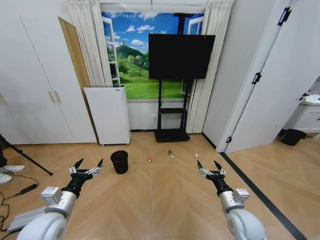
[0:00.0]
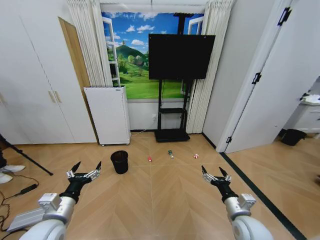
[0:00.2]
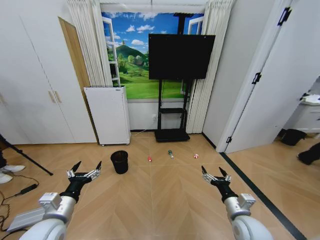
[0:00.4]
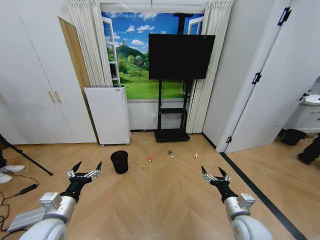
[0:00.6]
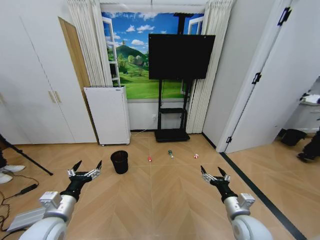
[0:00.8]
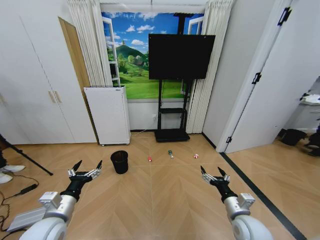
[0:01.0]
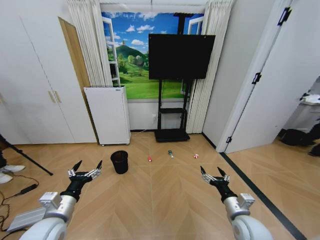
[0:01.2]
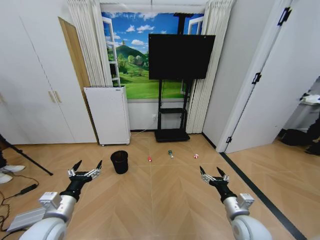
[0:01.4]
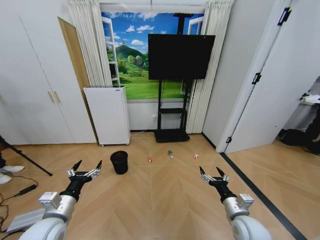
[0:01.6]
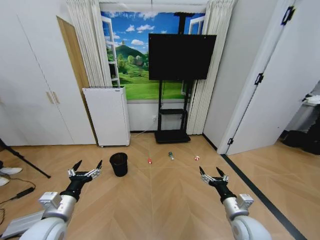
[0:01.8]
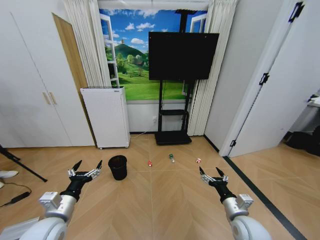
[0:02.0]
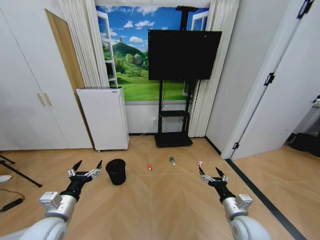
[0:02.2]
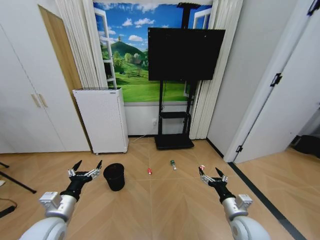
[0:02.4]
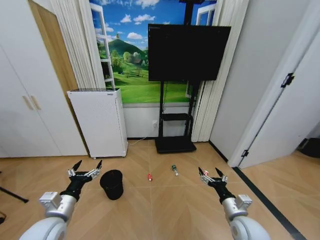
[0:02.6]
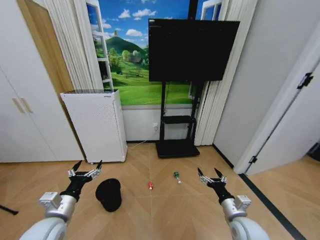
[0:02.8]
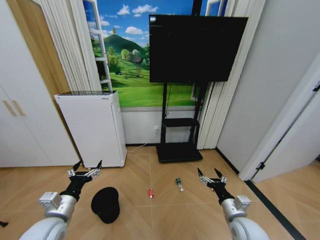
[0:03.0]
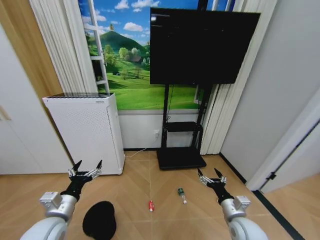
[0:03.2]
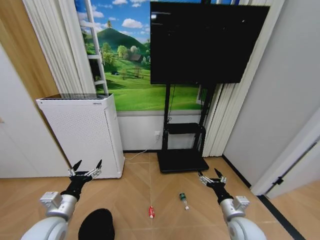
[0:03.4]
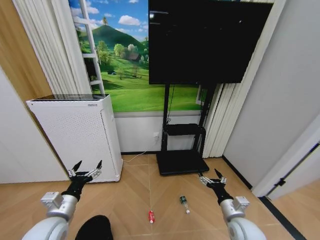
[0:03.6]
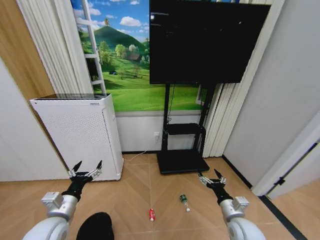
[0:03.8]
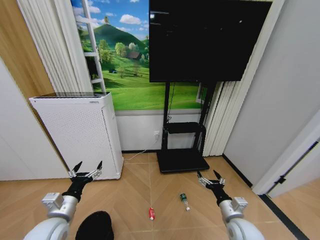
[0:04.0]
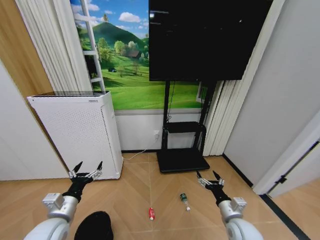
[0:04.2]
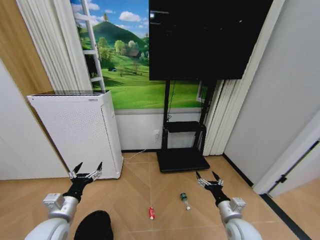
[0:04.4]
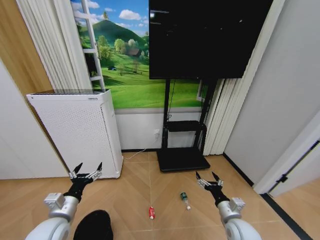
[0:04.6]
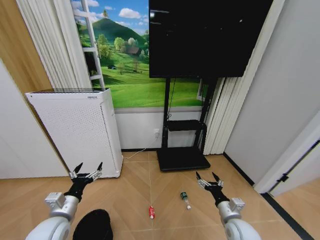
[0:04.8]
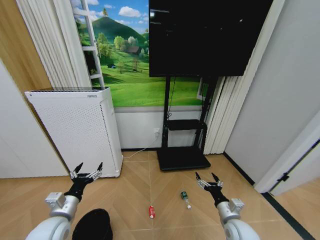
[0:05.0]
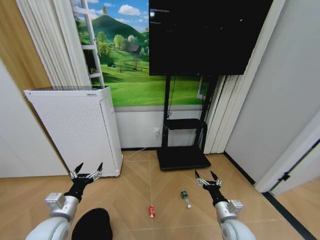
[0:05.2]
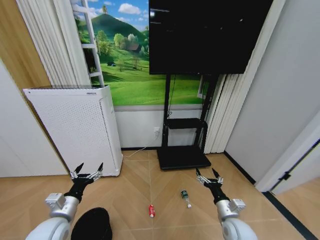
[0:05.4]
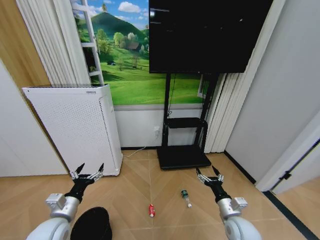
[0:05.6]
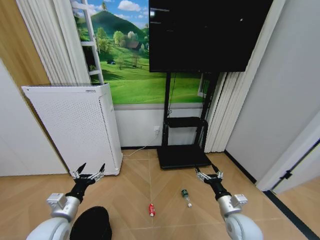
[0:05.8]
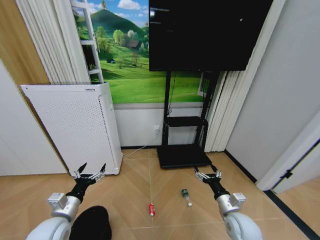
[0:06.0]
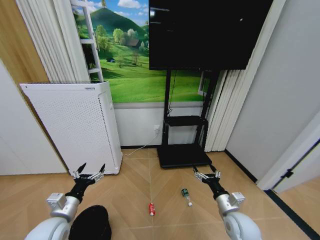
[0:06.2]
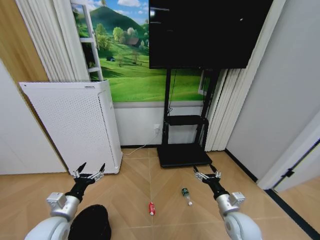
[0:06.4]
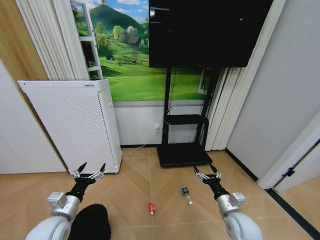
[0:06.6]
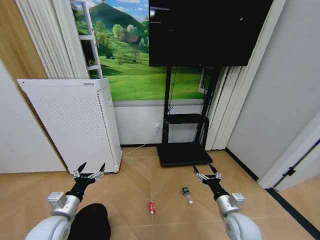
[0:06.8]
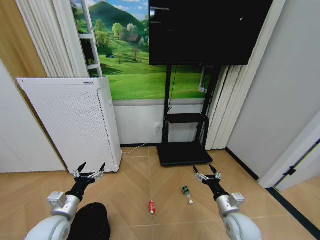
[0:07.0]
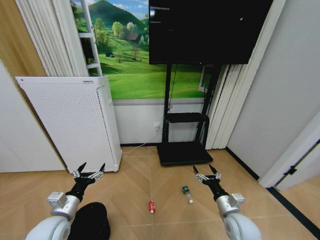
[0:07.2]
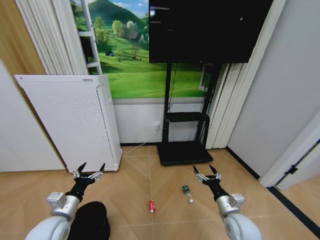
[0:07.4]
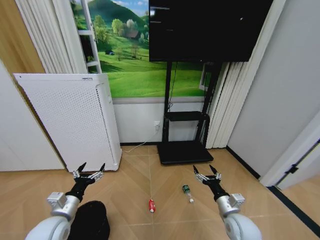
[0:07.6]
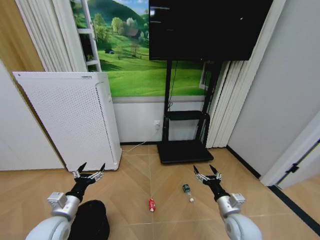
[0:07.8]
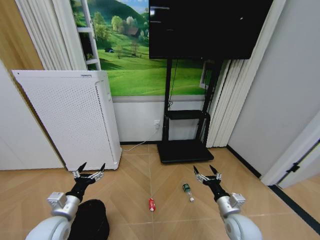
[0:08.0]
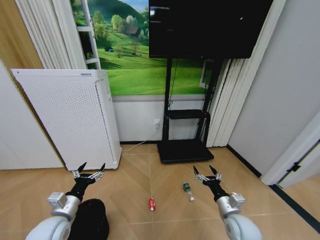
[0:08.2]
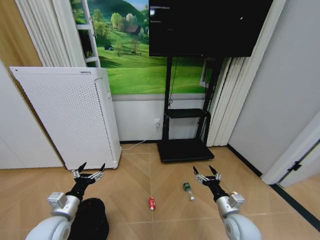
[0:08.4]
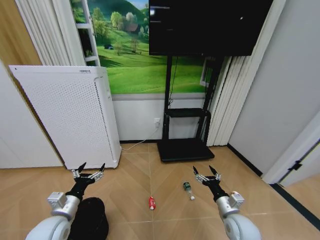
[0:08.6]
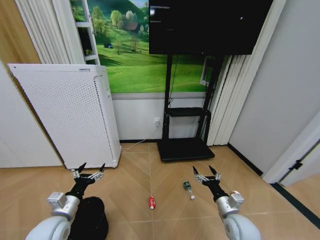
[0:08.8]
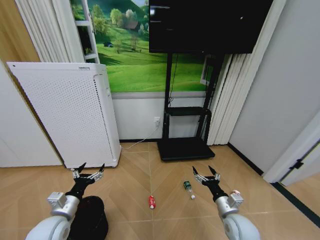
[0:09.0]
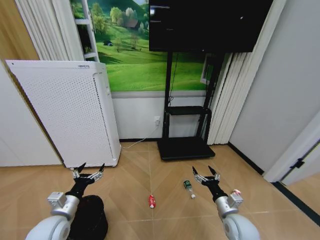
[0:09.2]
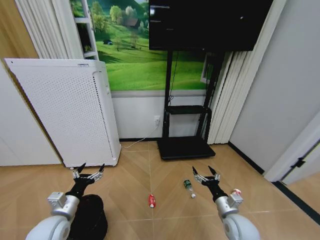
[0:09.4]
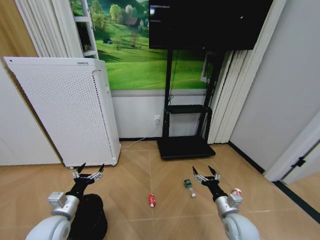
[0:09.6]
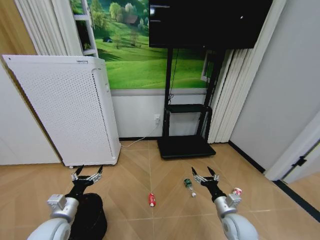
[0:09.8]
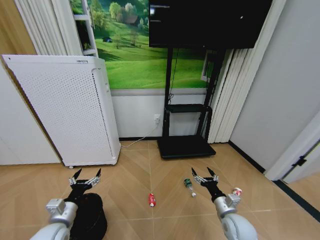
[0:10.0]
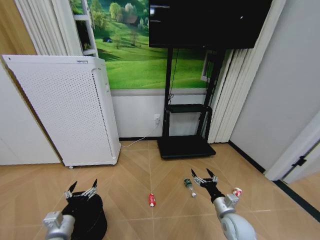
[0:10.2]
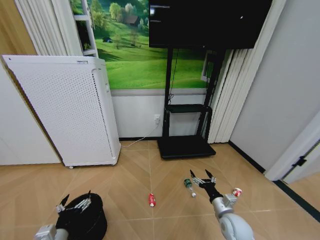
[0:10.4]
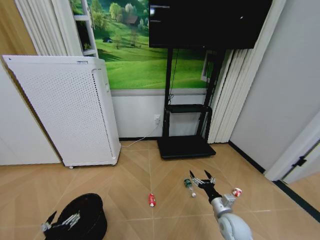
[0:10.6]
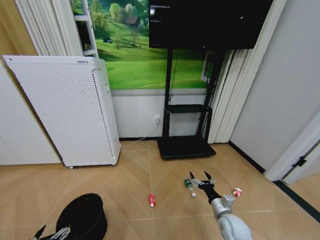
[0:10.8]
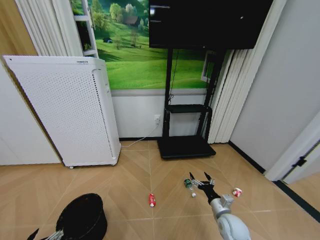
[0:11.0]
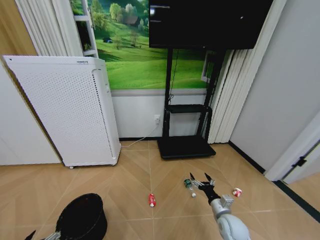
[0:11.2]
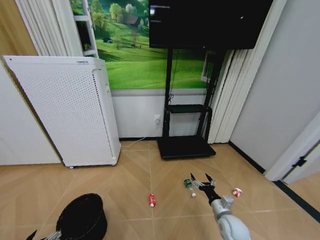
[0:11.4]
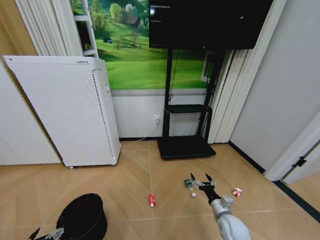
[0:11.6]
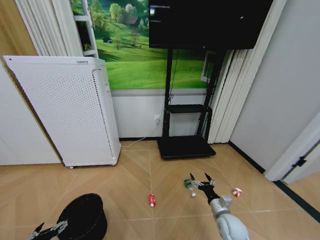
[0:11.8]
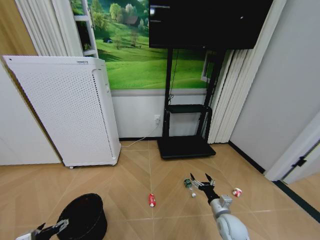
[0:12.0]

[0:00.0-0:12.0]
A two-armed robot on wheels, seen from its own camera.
Task of the whole recording: Pick up the trash bin and place the garbage on the floor into it.
0:04.4 to 0:06.0: There are only small adjustments of the grippers.
0:06.0 to 0:09.0: The two grippers keep their place.
0:09.0 to 0:10.4: The left gripper shifts some 10 cm backward and downward.
0:10.4 to 0:12.0: The left gripper goes some 10 cm to the left.

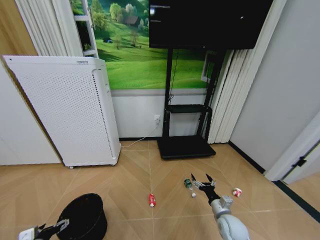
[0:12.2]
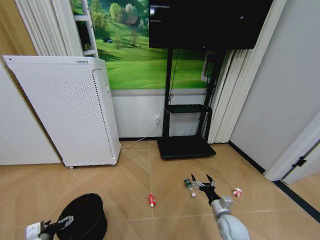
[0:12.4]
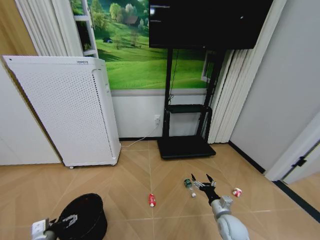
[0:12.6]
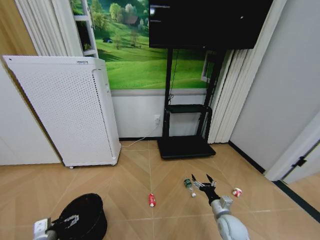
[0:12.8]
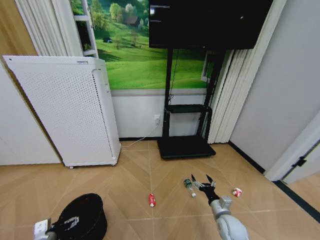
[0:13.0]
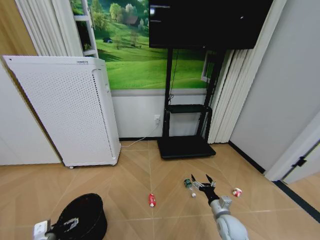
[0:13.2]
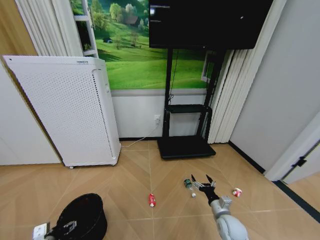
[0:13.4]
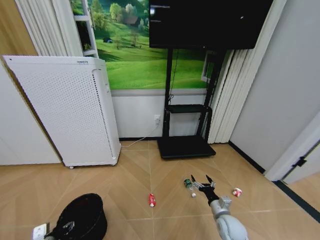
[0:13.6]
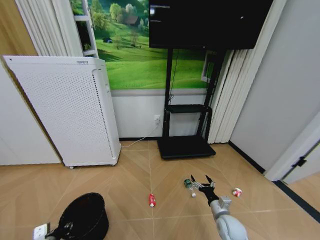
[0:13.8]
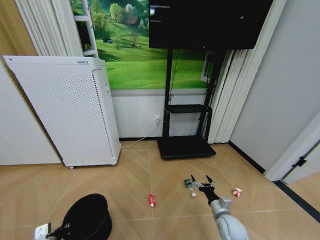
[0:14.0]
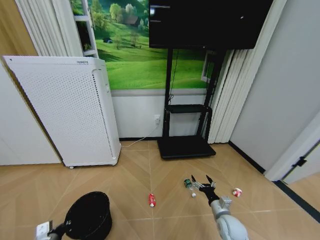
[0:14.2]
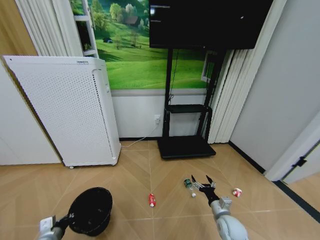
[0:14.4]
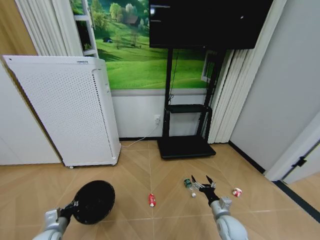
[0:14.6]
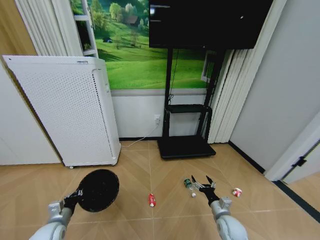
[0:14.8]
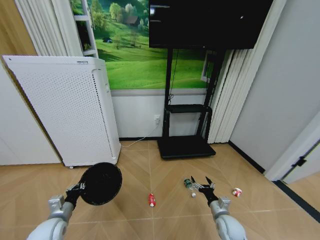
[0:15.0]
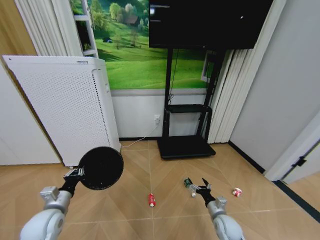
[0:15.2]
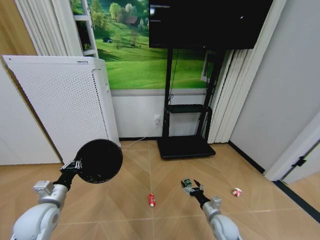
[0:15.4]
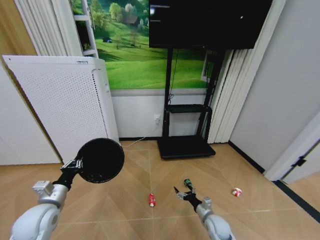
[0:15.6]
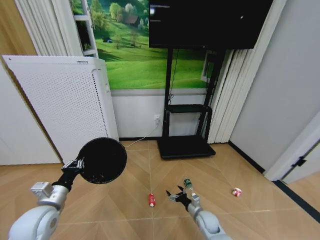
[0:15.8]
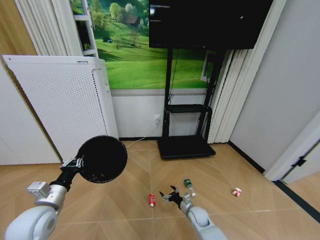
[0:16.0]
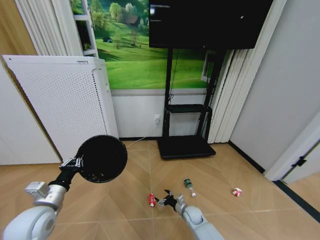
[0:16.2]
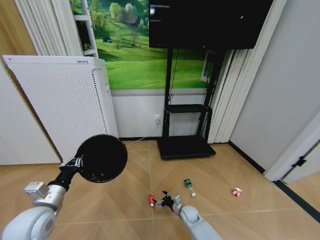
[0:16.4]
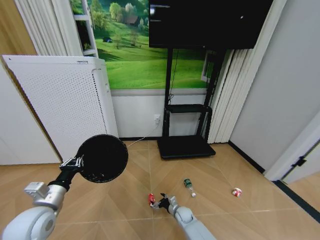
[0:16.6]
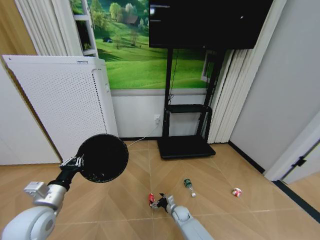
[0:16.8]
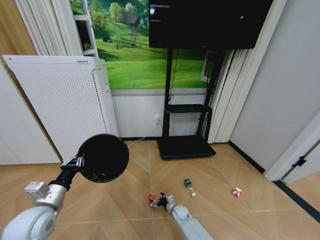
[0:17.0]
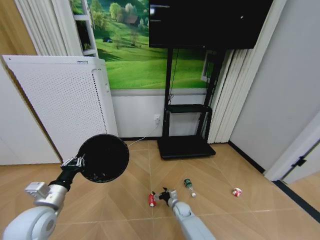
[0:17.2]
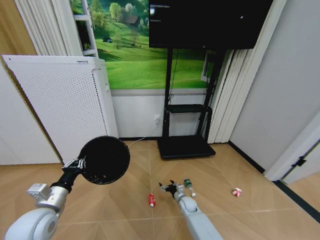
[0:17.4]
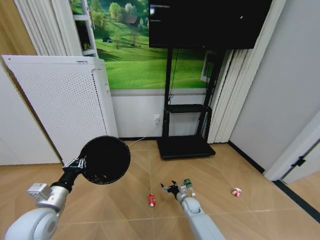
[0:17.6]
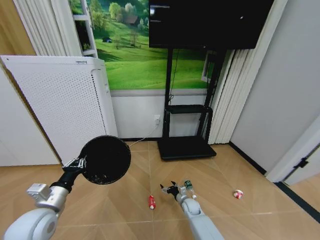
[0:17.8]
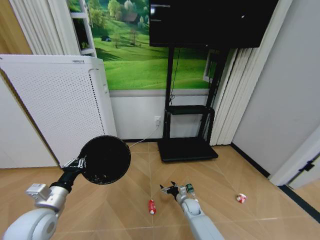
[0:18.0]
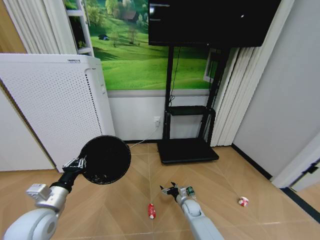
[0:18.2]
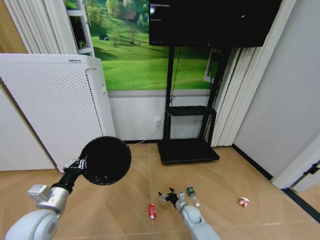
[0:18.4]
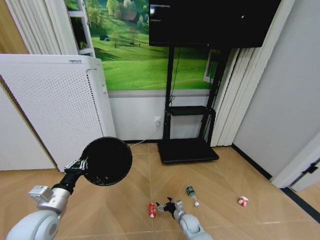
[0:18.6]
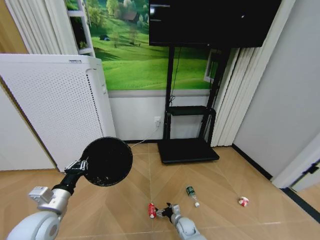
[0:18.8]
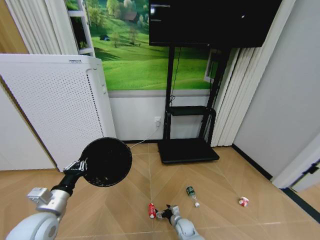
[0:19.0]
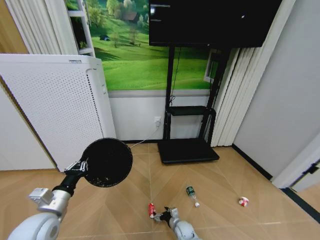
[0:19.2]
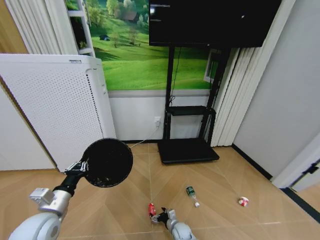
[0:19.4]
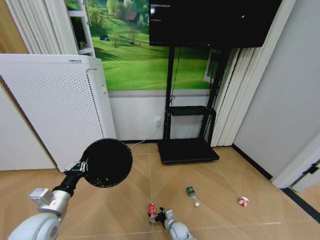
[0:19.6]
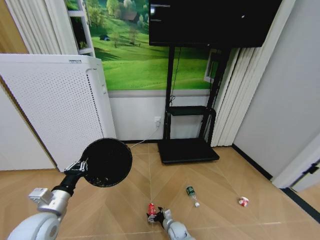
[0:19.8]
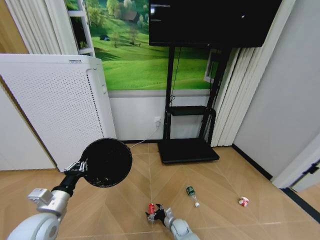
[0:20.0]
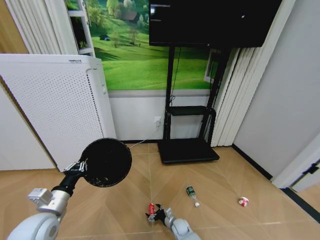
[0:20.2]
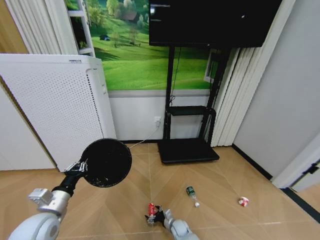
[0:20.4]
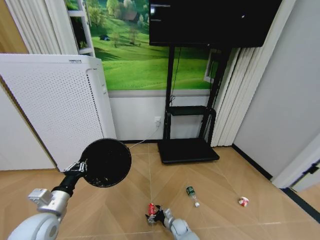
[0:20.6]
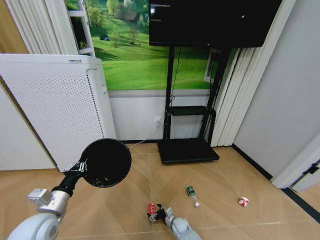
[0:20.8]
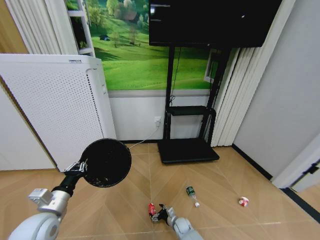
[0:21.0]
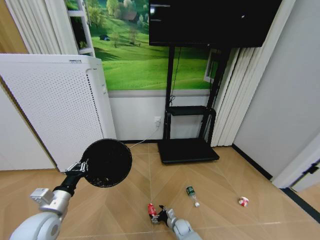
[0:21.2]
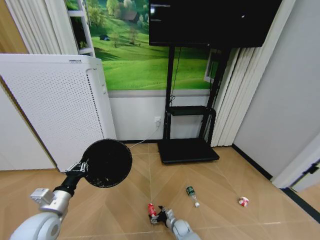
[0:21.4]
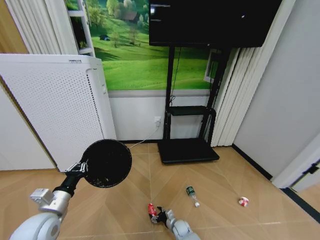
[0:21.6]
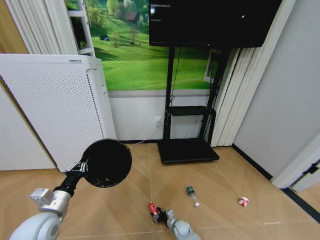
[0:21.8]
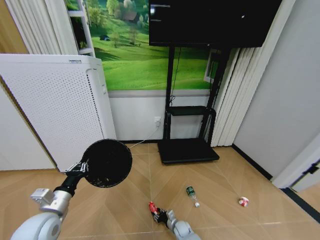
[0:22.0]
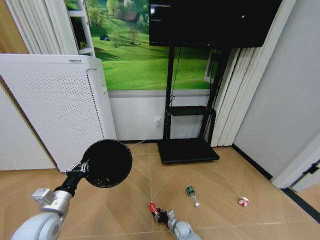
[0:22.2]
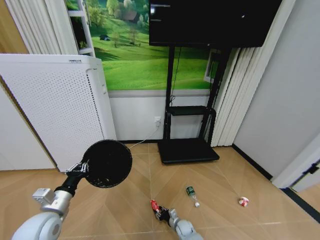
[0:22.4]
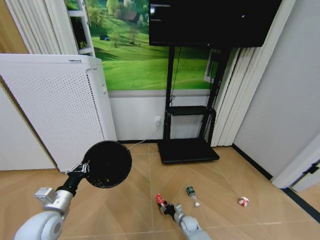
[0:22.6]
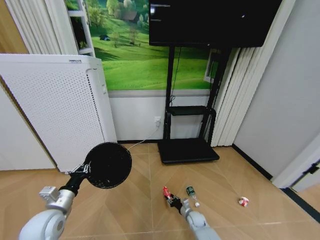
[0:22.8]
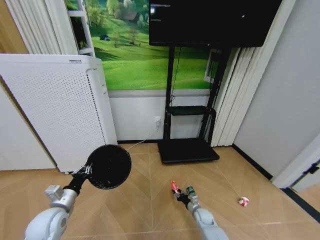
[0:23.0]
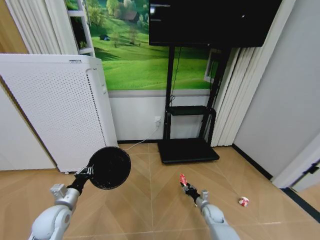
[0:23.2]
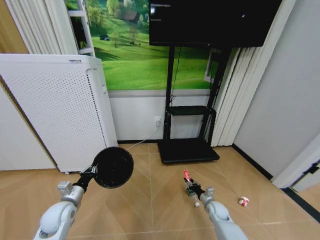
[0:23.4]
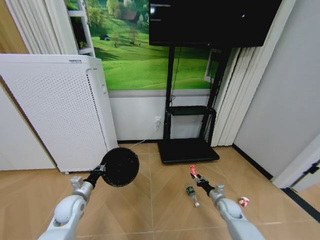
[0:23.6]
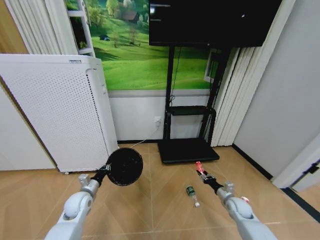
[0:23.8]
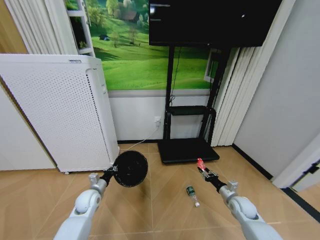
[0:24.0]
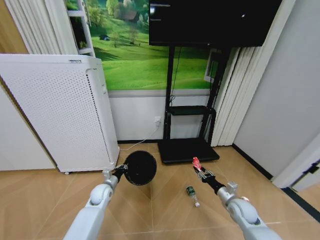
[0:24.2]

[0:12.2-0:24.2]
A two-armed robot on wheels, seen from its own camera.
Task of the whole recording: Pick up the trash bin and place the garbage on the floor into it.
0:12.2 to 0:13.8: The left gripper closes its fingers.
0:13.8 to 0:15.2: The left gripper travels upward and forward by approximately 10 cm, and closes up.
0:15.2 to 0:16.6: The right gripper goes approximately 20 cm to the left, downward and forward, while the left gripper goes some 5 cm upward.
0:16.6 to 0:18.2: The right gripper ends up some 5 cm from where it was.
0:18.2 to 0:19.8: The right gripper is displaced to the left, backward and downward by approximately 15 cm.
0:19.8 to 0:21.2: The grippers move only a little.
0:21.2 to 0:22.6: The right gripper closes its fingers.
0:22.6 to 0:24.2: The right gripper moves upward and to the right, about 30 cm, while the left gripper heads forward, downward and to the right, covering roughly 25 cm.
